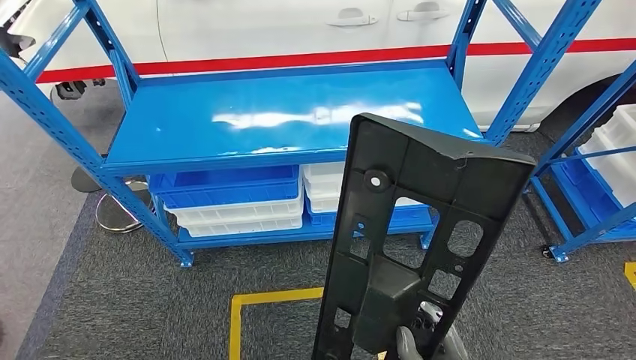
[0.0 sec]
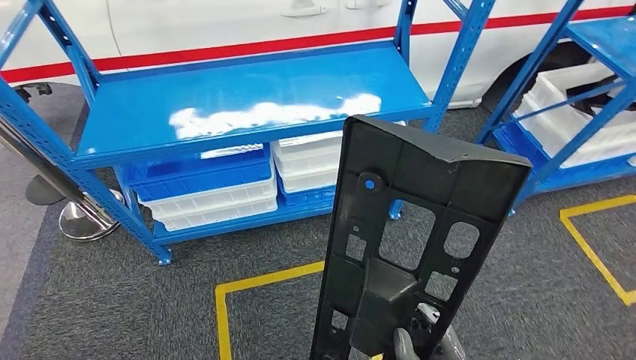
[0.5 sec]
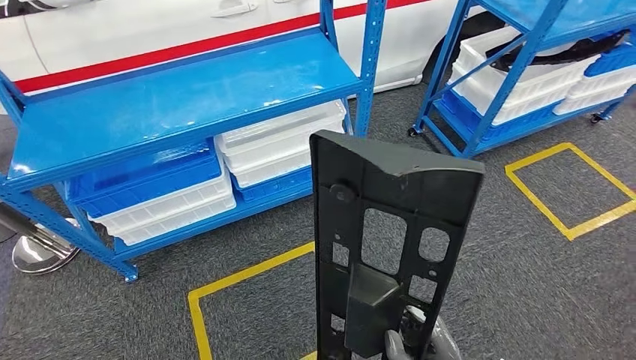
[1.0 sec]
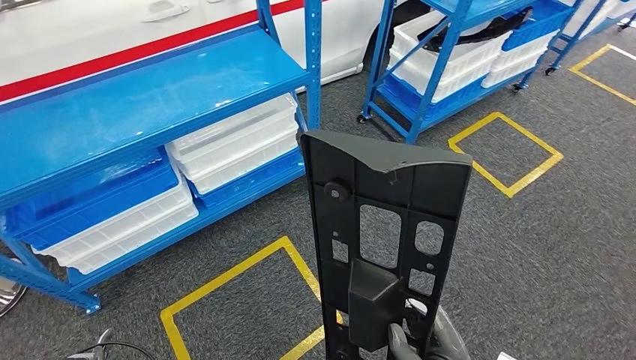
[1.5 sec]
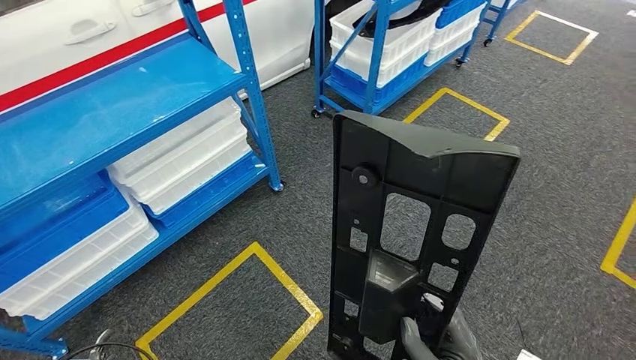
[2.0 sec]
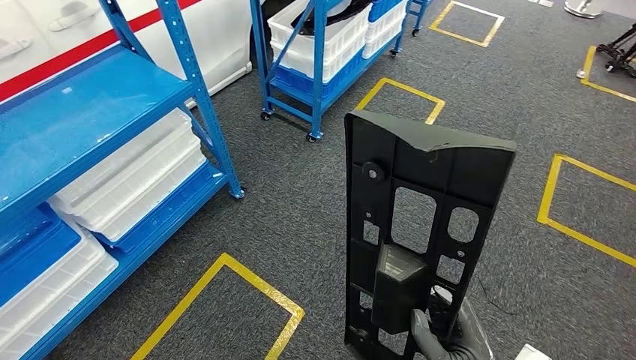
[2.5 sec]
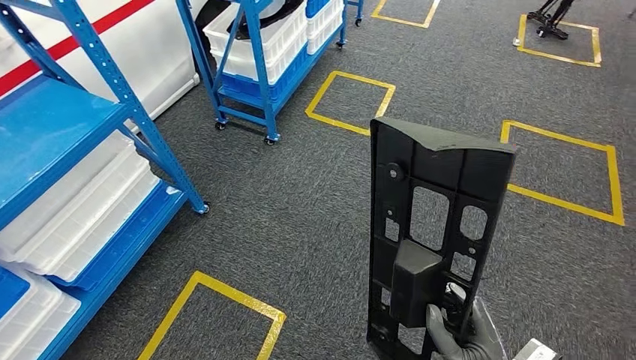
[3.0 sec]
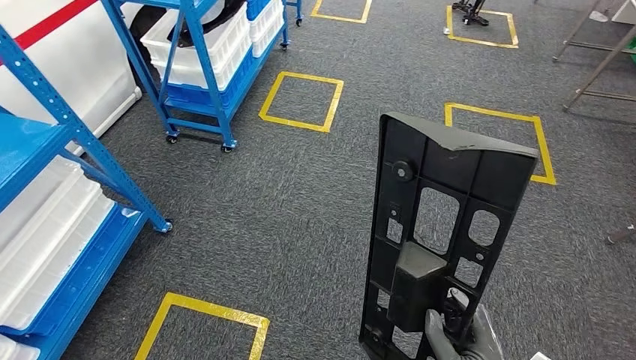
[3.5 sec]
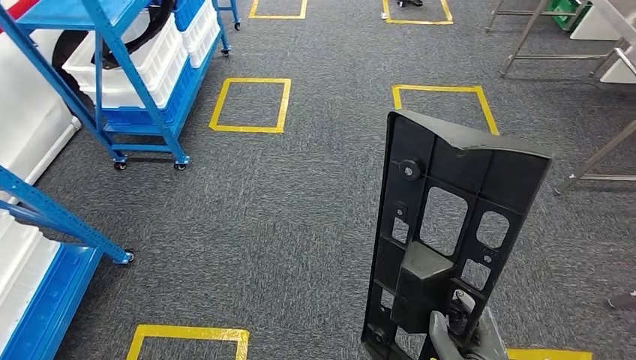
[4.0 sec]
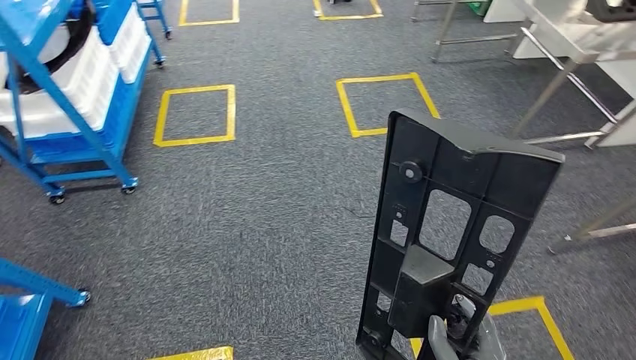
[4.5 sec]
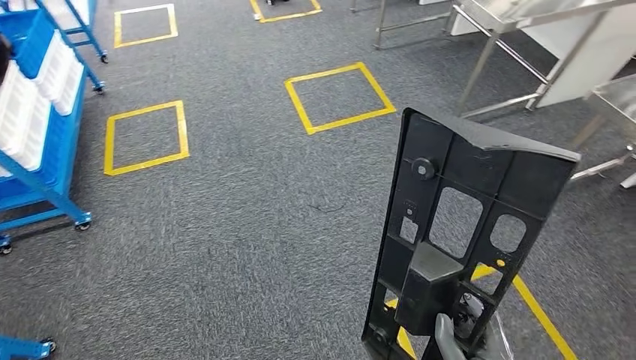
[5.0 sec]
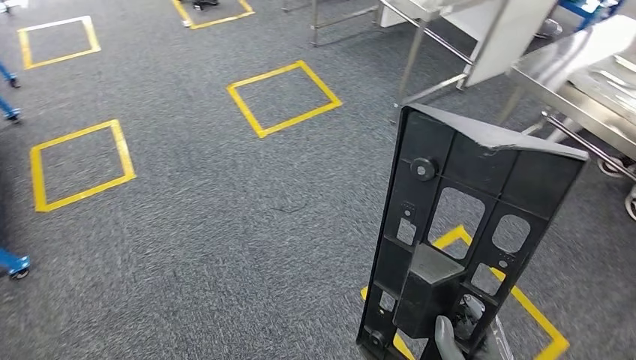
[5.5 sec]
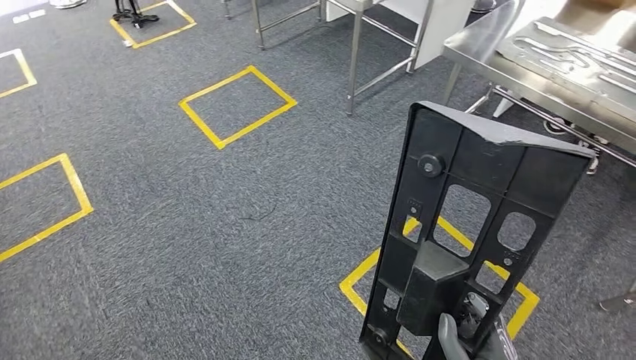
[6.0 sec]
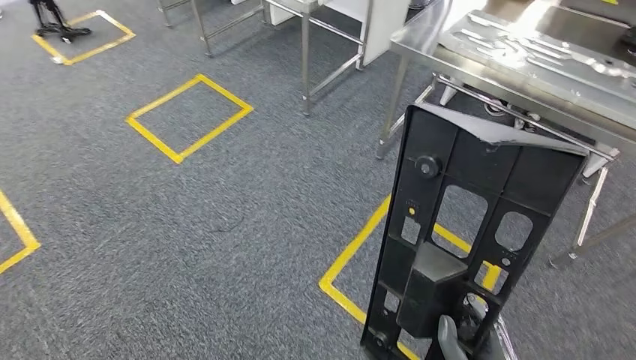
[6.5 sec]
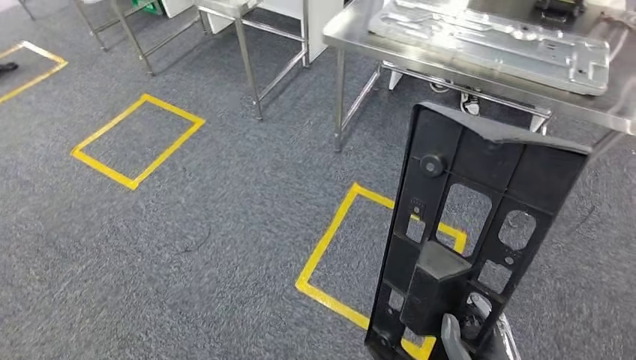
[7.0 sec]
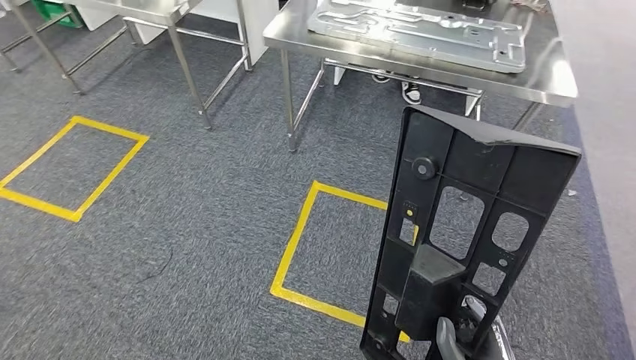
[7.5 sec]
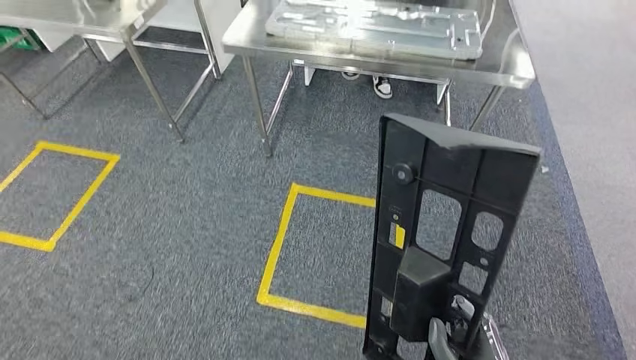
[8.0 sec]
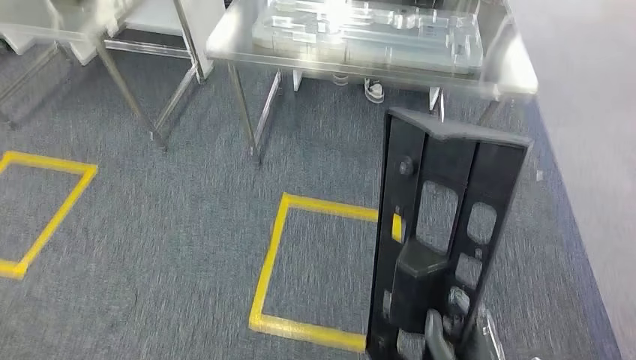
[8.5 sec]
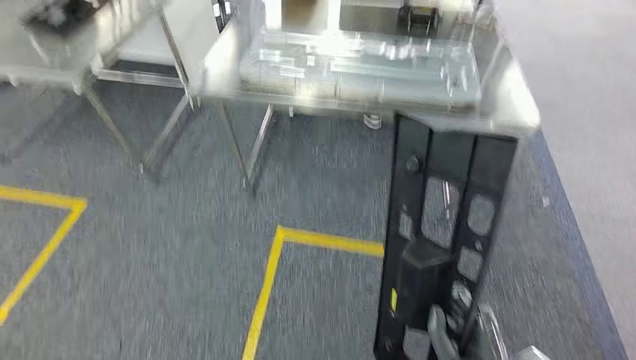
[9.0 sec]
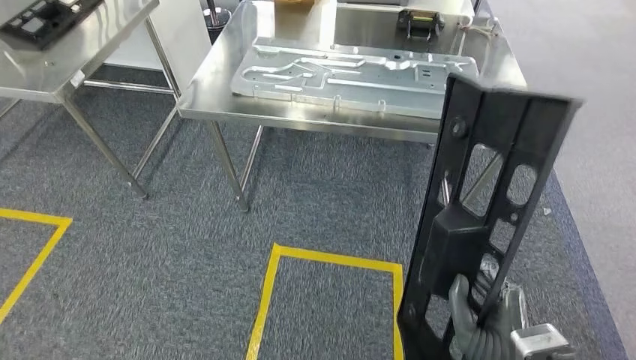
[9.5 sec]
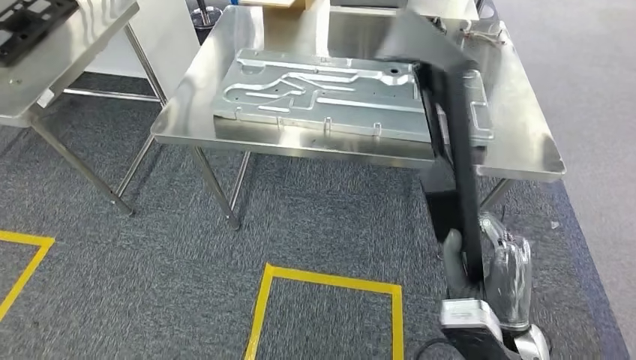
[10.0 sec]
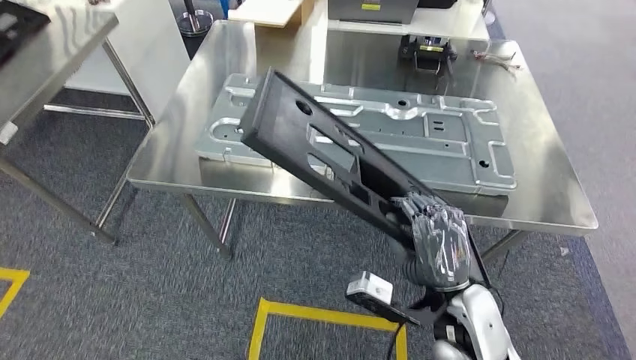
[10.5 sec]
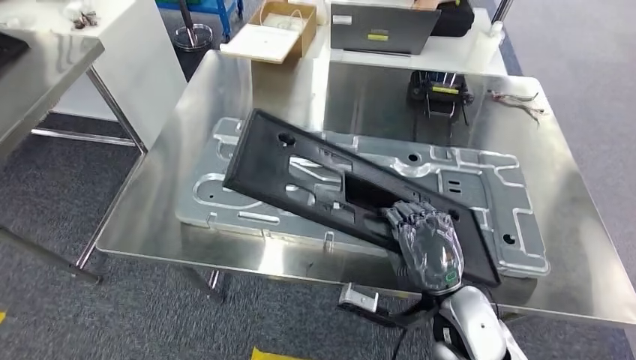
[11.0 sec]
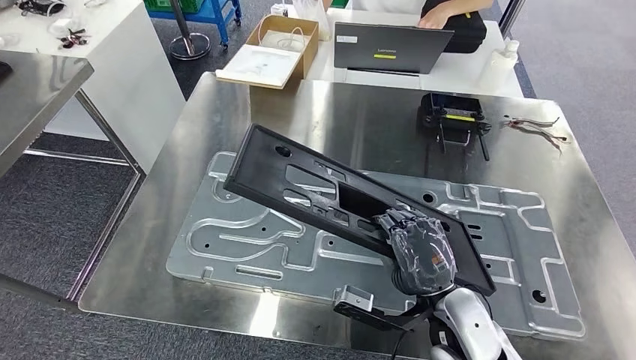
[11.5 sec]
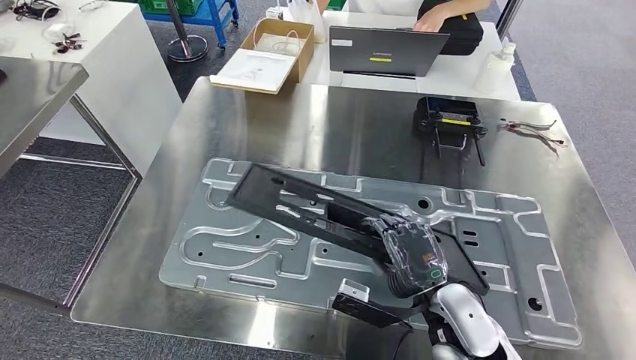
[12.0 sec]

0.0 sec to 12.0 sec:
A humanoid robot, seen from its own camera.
Step, 0.0 sec to 10.0 sec: Move the large material to the workbench.

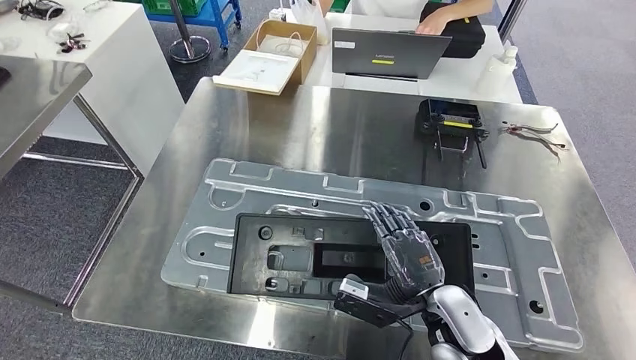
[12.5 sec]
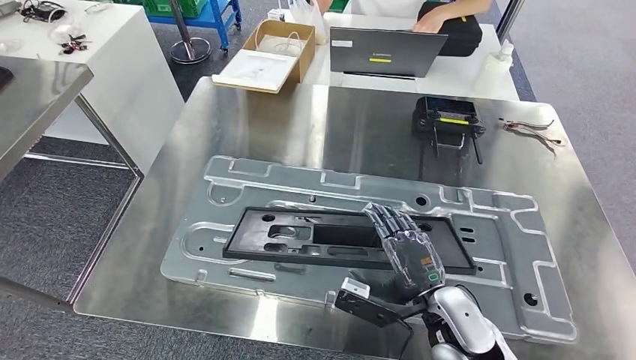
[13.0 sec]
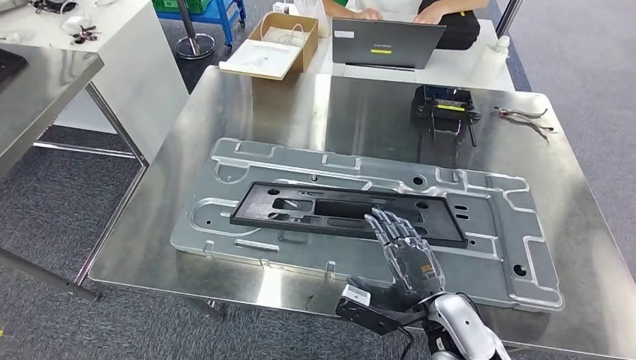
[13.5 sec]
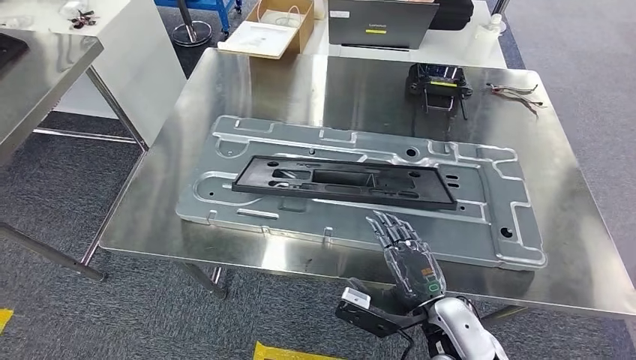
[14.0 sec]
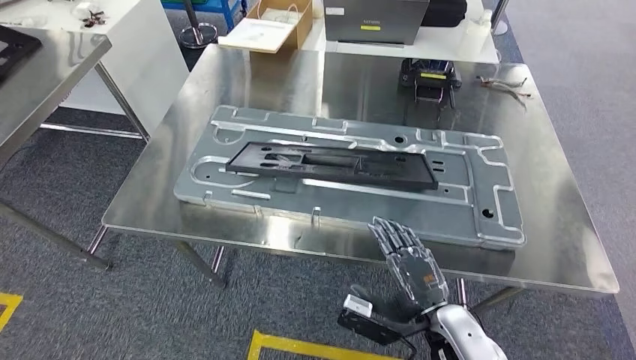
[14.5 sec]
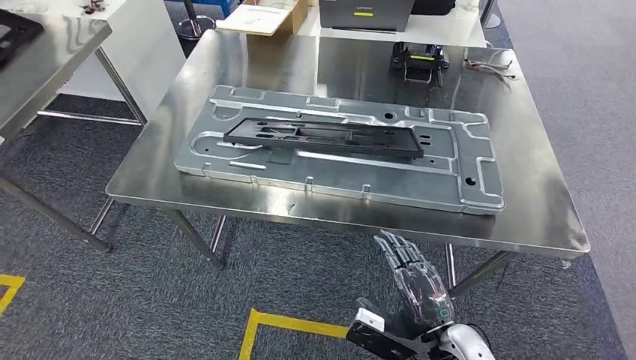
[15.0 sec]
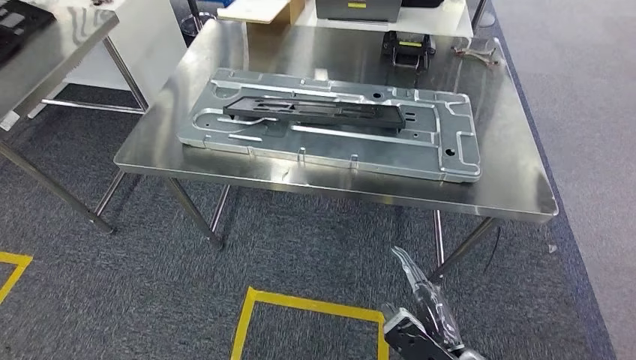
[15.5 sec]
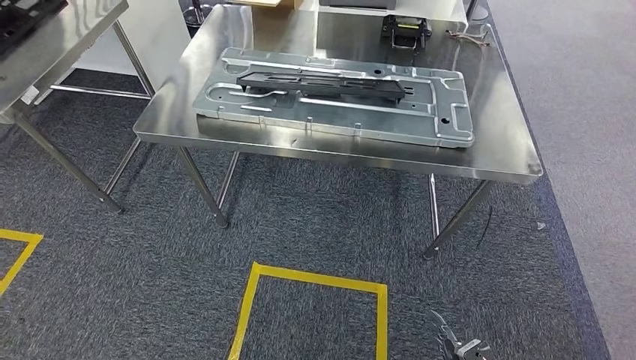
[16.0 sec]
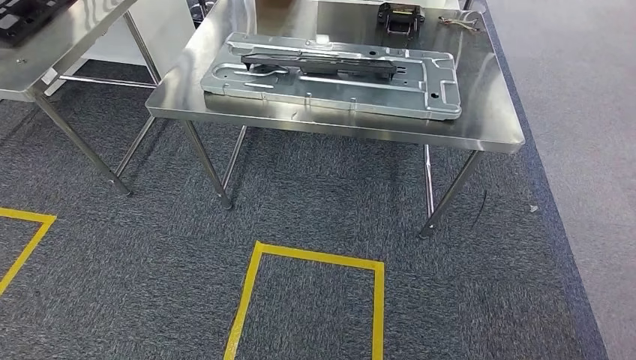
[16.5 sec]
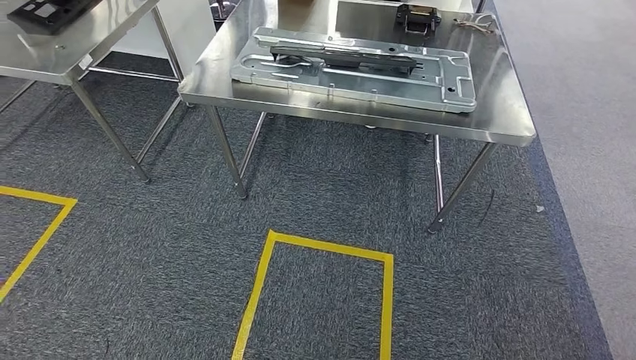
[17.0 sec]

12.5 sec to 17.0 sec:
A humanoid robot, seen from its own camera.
Step, 15.0 sec to 17.0 sec: Move to the initial position of the shelf.
